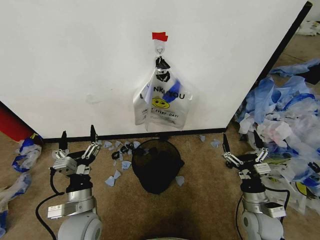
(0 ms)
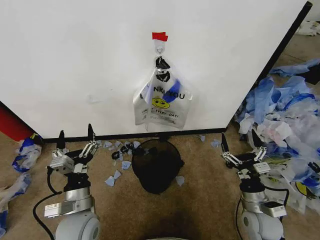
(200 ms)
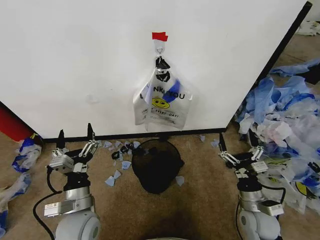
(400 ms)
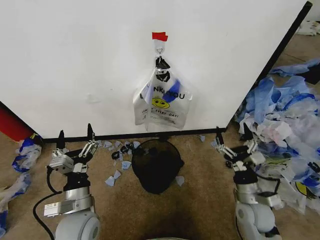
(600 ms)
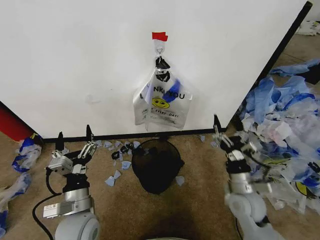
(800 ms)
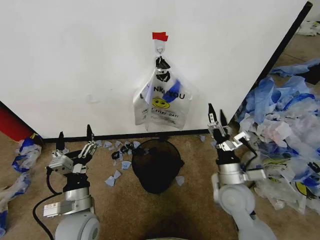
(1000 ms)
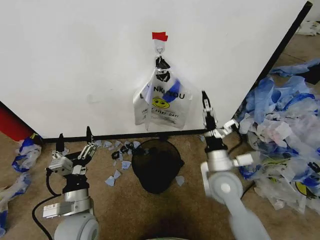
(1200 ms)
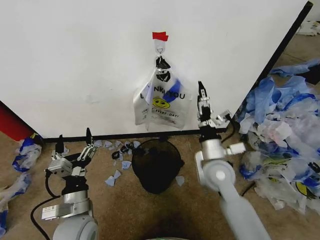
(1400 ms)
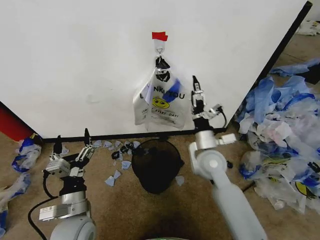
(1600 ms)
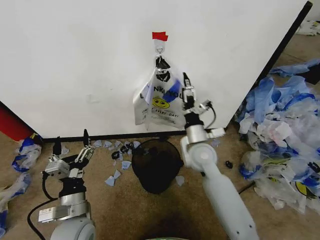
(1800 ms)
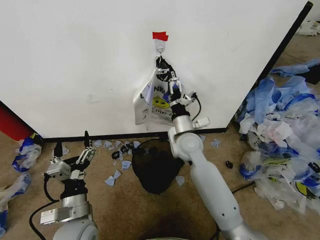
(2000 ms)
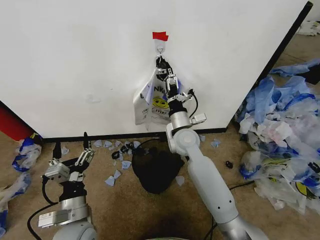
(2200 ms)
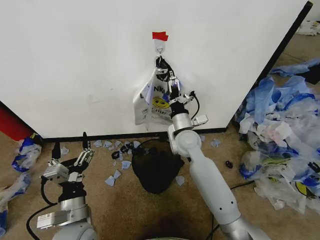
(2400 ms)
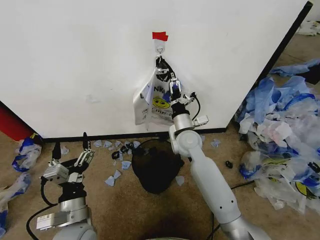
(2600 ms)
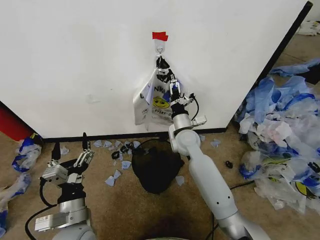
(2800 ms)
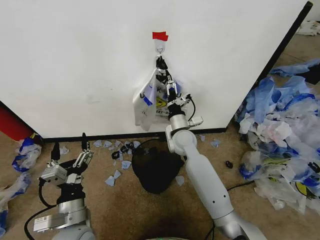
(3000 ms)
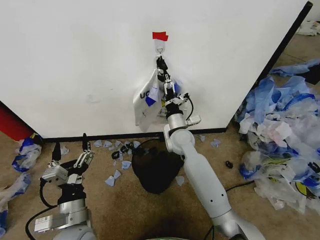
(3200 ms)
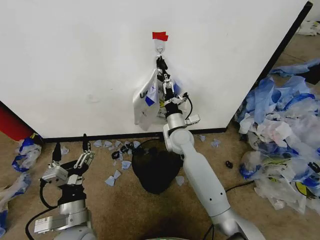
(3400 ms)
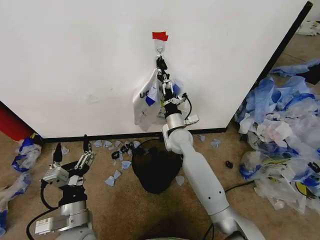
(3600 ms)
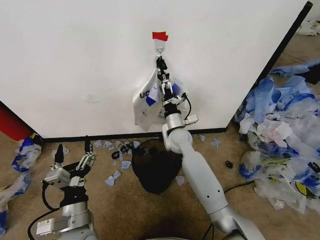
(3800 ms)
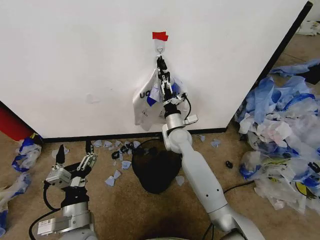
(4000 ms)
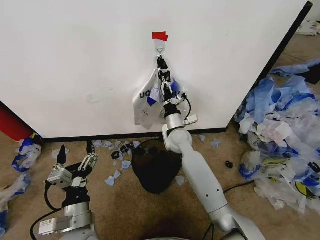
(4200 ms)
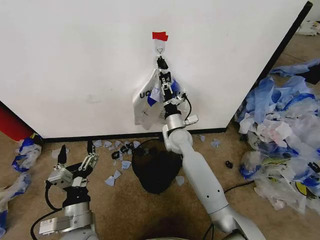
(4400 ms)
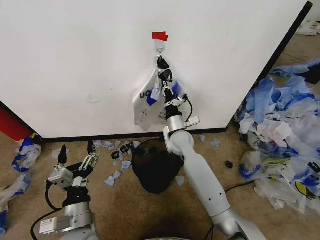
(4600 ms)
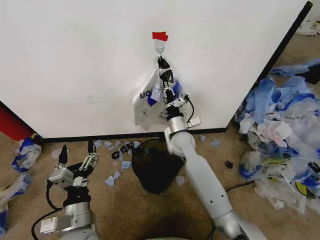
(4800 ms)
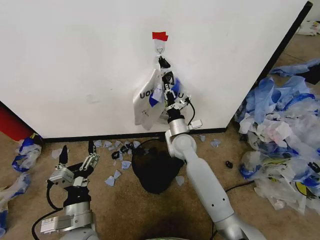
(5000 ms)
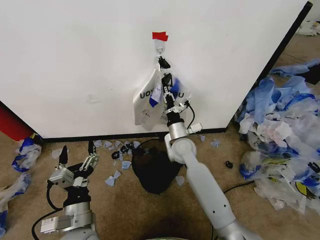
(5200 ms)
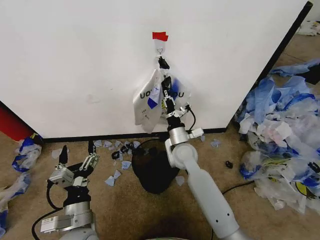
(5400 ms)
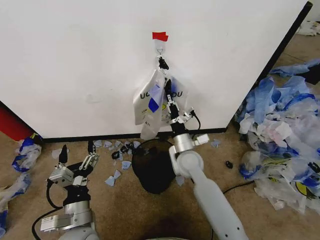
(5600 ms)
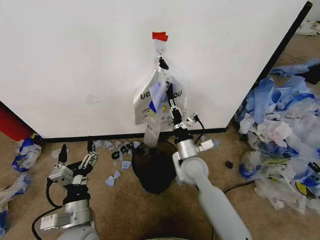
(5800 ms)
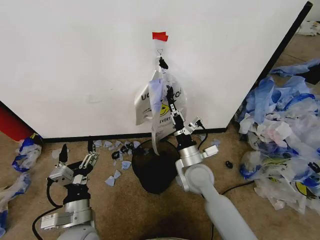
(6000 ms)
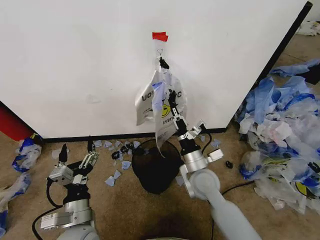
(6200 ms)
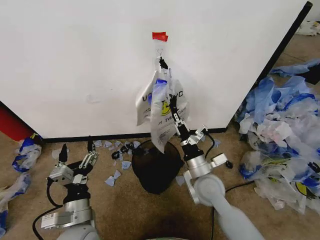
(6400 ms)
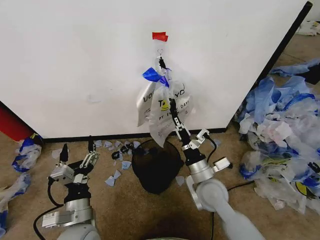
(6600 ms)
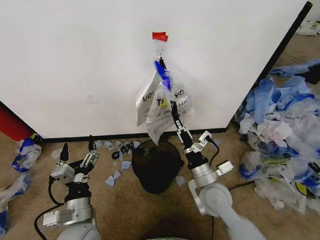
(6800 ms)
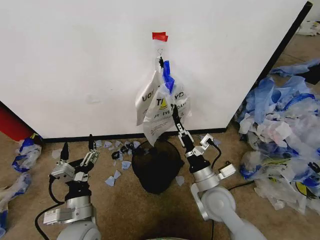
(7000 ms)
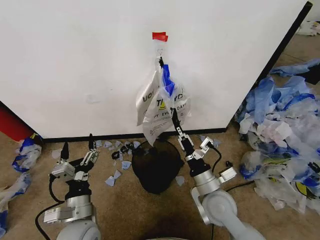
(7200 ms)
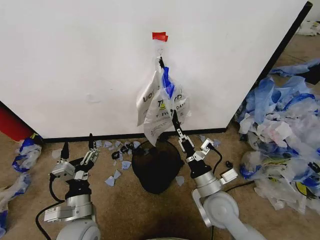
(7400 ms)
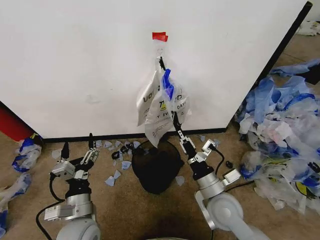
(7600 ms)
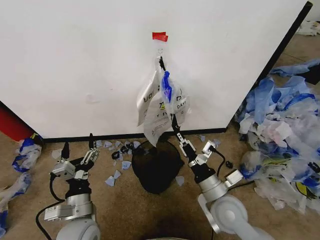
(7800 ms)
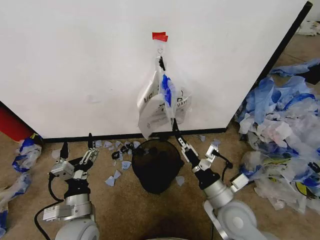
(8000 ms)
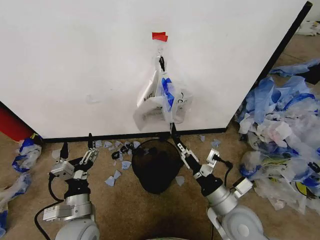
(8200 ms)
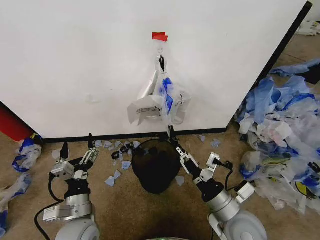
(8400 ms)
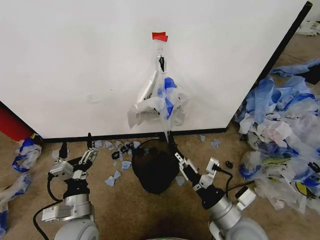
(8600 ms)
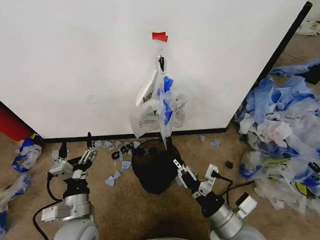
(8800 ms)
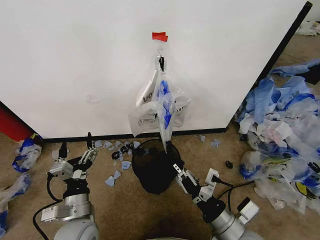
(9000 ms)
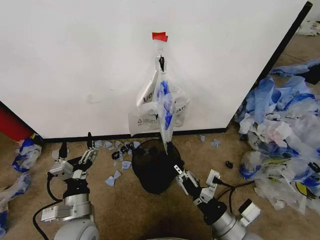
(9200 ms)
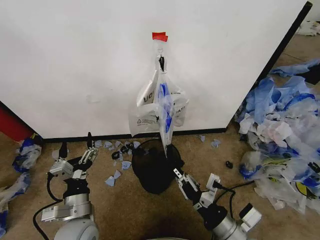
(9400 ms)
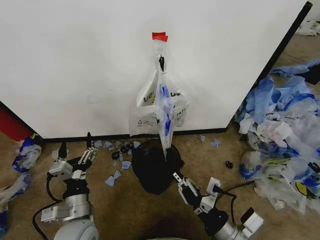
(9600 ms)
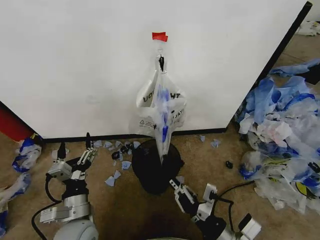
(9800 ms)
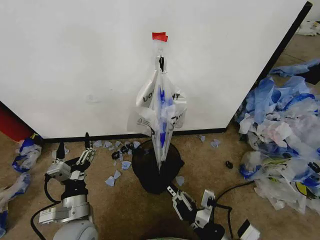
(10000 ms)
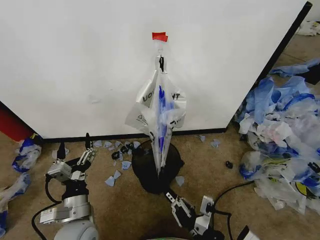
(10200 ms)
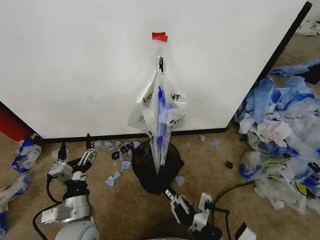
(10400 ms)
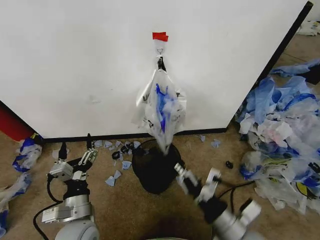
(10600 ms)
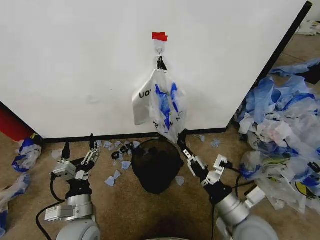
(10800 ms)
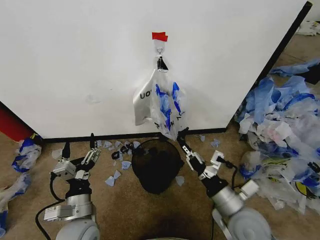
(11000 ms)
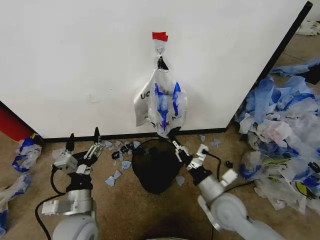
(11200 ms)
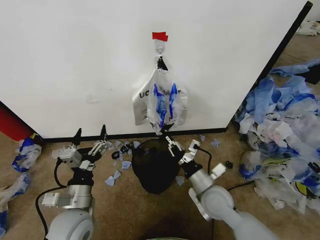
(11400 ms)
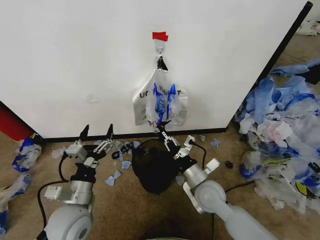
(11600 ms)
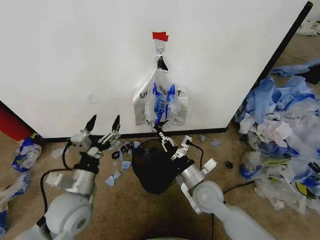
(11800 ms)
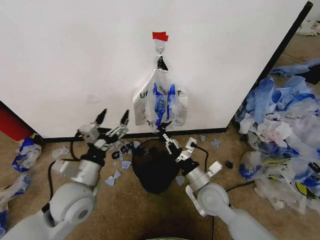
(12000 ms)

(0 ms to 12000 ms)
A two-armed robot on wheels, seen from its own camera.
Task of the whole recording: Pick up the garbage bag from the wall and place it over the trash bin.
1600 ms - 3000 ms: The right gripper shifts roughly 10 cm forward and to the left.
3000 ms - 4400 ms: The right gripper closes.
4400 ms - 6000 ms: The right gripper heads backward, covering approximately 15 cm.
6000 ms - 7600 ms: The right gripper heads backward and to the right, covering roughly 10 cm.
7600 ms - 9000 ms: The right gripper heads backward, covering about 10 cm.
9000 ms - 10400 ms: The right gripper travels backward by some 5 cm.
10400 ms - 12000 ms: The left gripper goes roughly 10 cm upward and forward. Meanwhile the right gripper is displaced forward by roughly 20 cm.

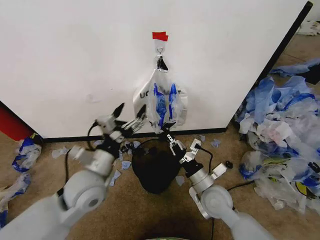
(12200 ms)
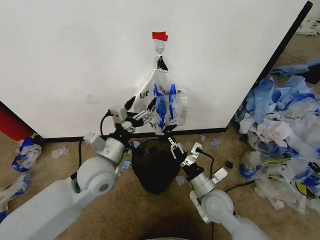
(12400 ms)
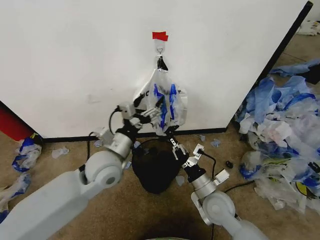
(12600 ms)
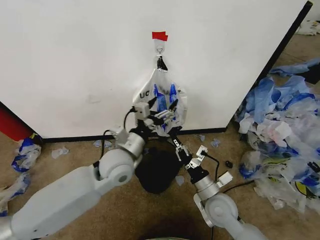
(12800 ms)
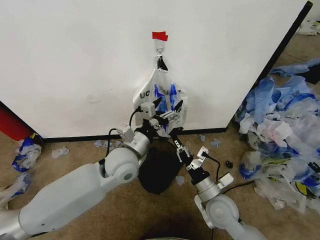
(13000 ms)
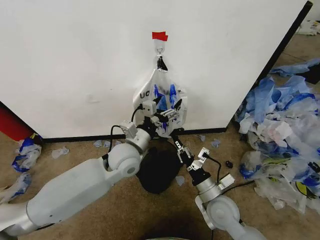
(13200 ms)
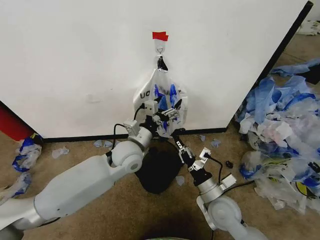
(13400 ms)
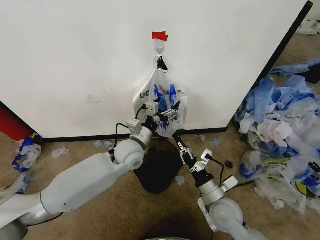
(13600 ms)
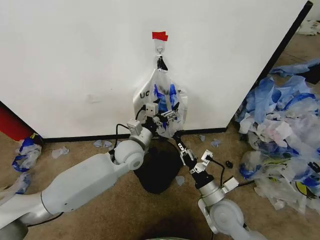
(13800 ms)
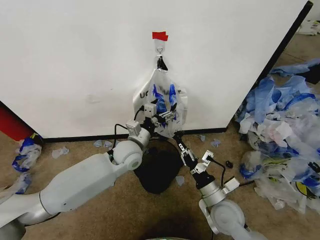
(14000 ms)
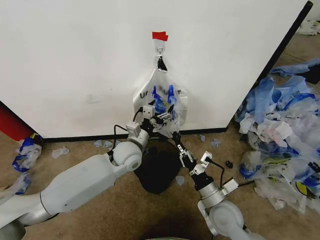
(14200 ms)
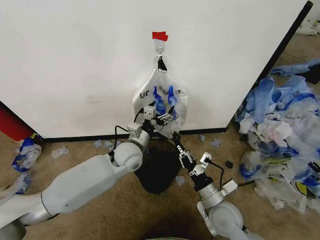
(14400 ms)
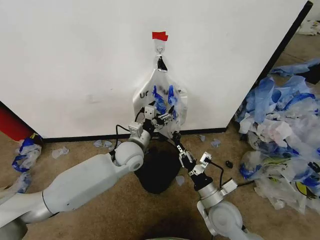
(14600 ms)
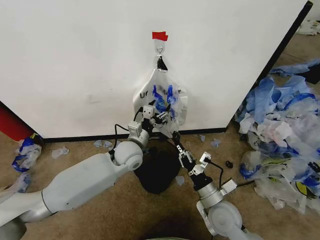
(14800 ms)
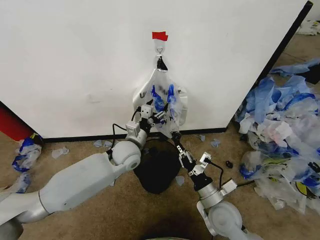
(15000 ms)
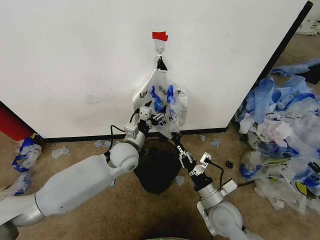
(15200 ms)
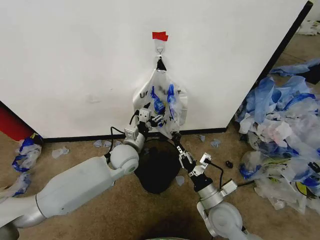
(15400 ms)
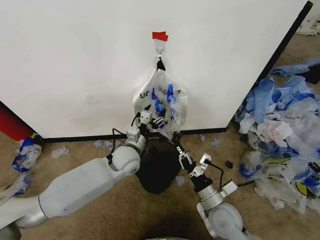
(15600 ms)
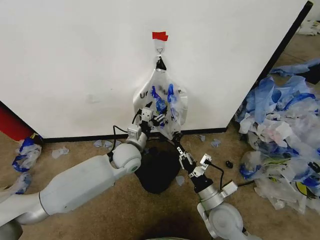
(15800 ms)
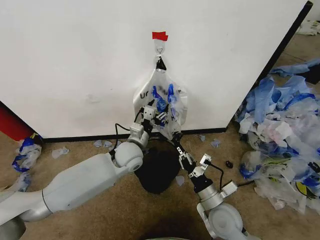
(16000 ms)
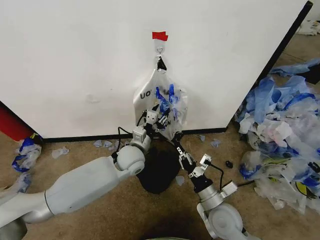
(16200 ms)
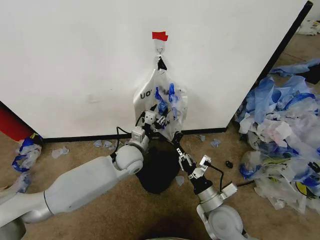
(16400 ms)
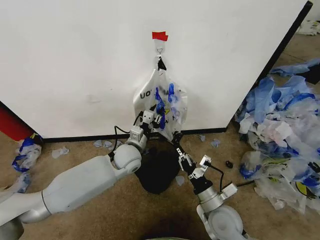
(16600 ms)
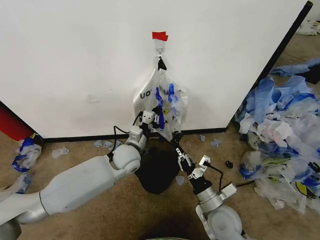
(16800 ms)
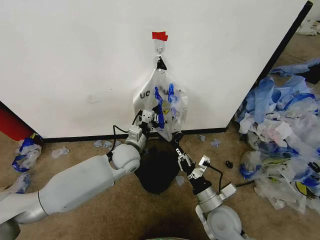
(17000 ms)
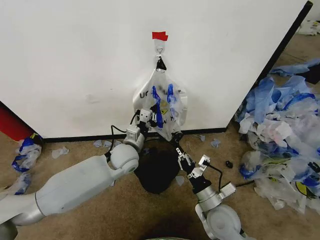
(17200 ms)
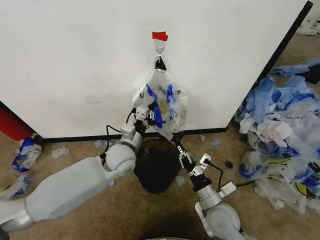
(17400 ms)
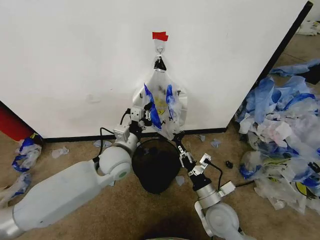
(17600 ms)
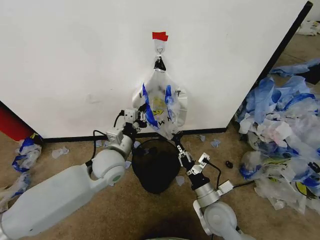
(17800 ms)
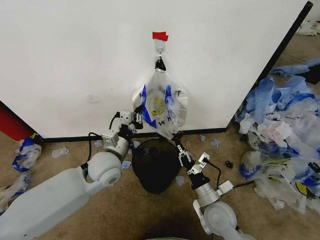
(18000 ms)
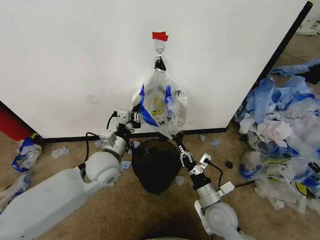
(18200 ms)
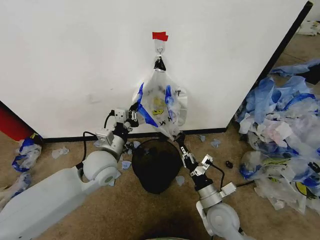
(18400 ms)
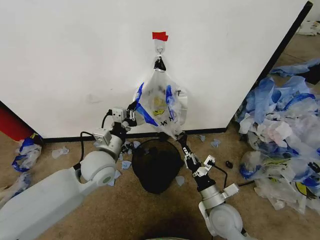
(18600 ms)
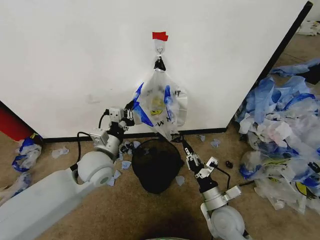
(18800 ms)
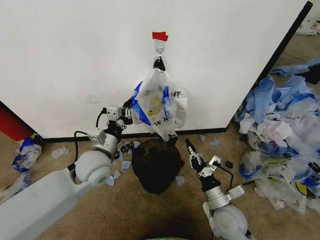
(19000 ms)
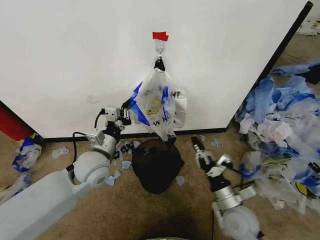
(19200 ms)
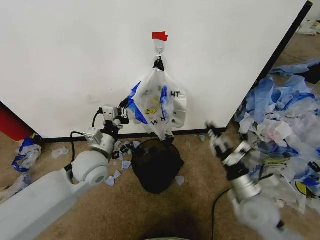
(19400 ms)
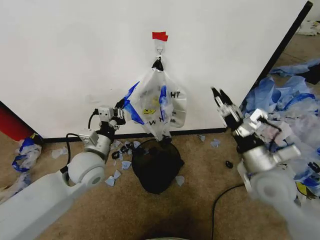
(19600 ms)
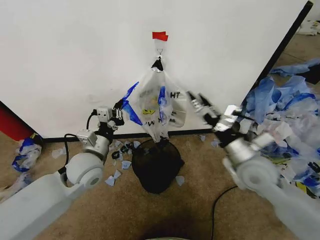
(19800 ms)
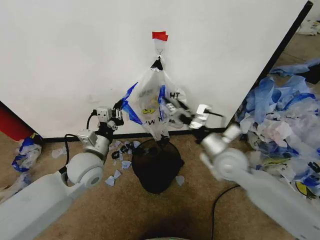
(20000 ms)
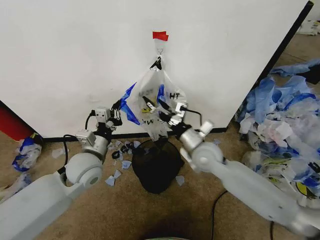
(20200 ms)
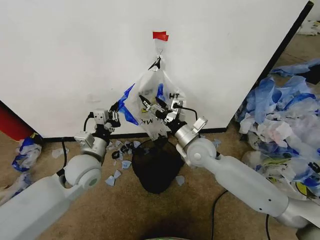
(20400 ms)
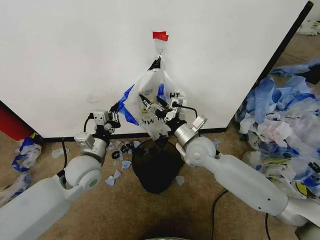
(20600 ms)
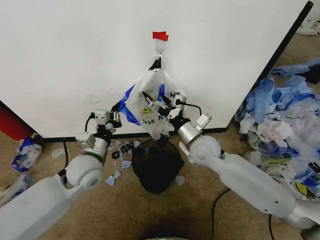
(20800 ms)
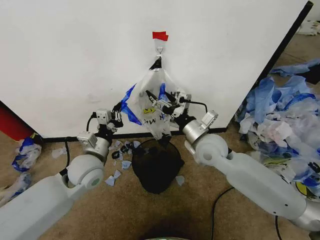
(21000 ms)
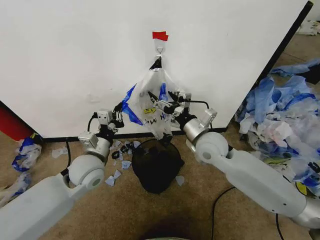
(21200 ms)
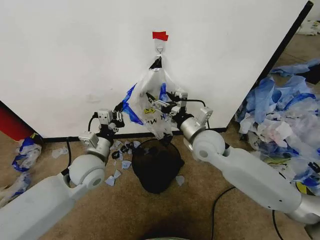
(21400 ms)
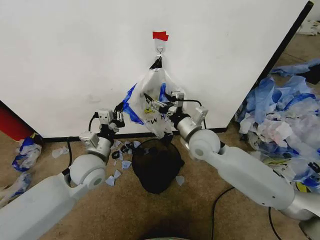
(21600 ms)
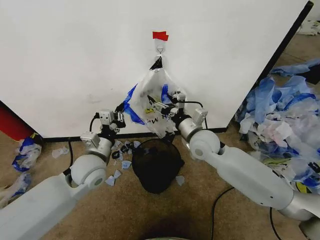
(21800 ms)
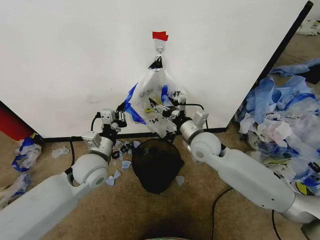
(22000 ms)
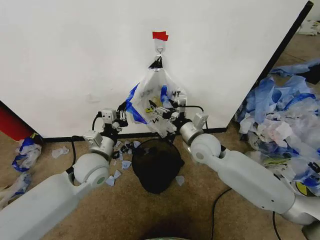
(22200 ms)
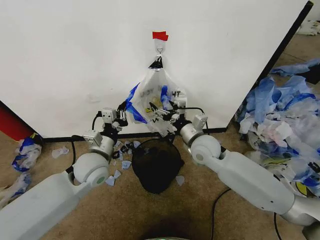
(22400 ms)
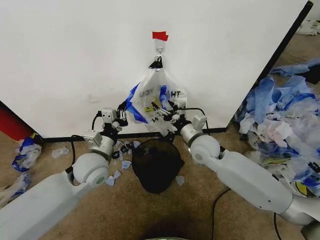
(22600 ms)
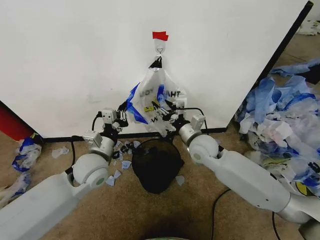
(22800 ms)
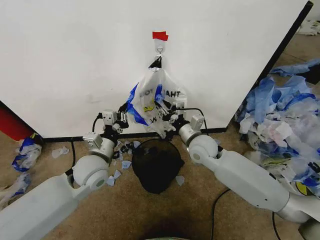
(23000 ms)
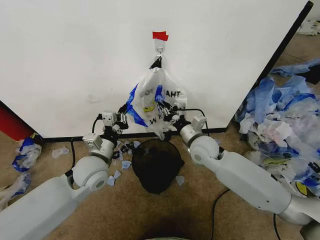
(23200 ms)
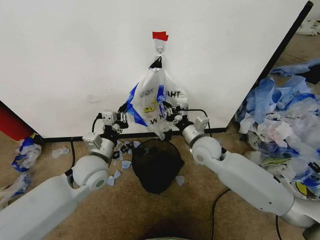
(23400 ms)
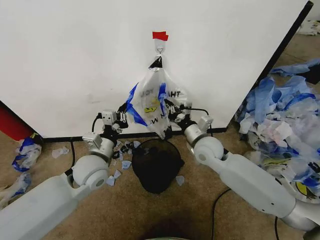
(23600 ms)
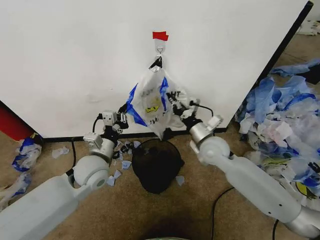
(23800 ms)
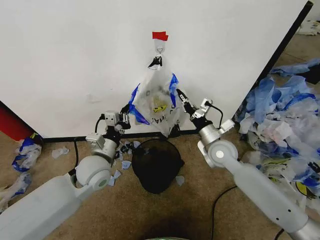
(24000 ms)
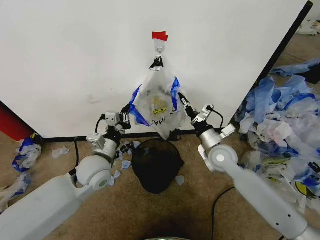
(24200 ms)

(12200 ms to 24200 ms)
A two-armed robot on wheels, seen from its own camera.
Task of the whole recording: Pick up the garbage bag from the wall and place it over the trash bin.
12200 ms - 13800 ms: The left gripper heads forward and to the right, covering roughly 15 cm.
13800 ms - 15200 ms: The grippers make only small movements.
15200 ms - 16600 ms: The left gripper closes its fingers.
16600 ms - 18200 ms: The left gripper is displaced backward and to the left by some 10 cm.
18200 ms - 19800 ms: The right gripper heads upward, to the right and forward, covering roughly 20 cm, and opens.
19800 ms - 21200 ms: The right gripper heads to the left and forward, covering roughly 15 cm.
21200 ms - 22600 ms: The grippers stay close to where they were, moving slightly.
22600 ms - 24200 ms: The right gripper travels to the right by about 5 cm, and closes its fingers.
